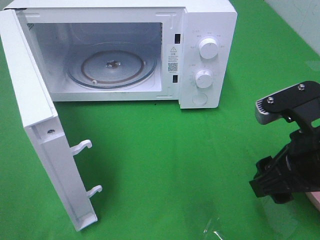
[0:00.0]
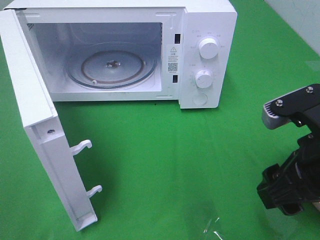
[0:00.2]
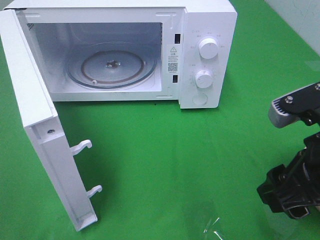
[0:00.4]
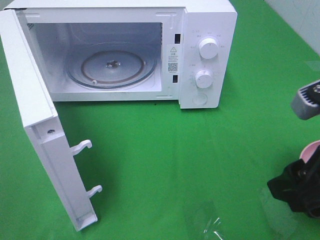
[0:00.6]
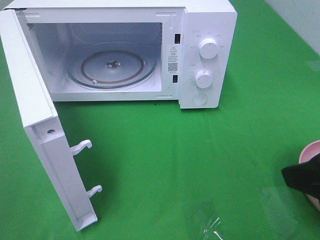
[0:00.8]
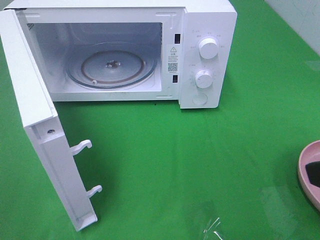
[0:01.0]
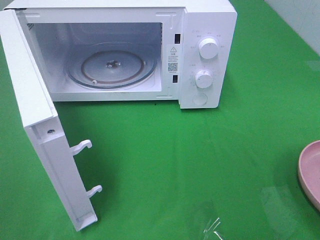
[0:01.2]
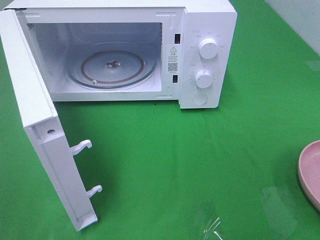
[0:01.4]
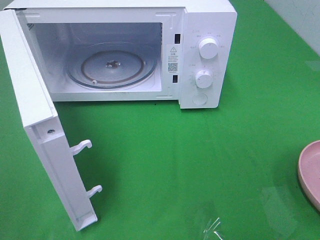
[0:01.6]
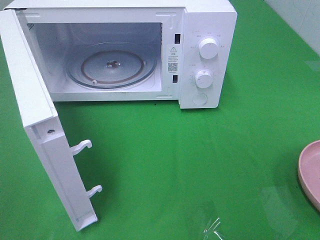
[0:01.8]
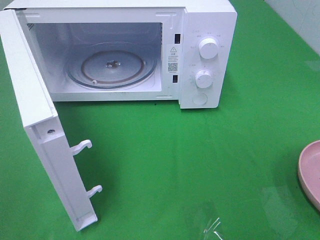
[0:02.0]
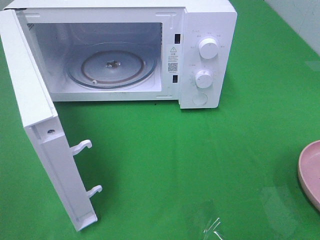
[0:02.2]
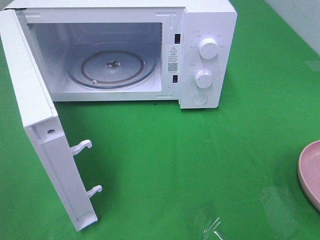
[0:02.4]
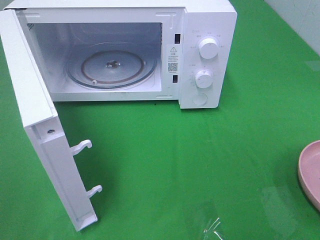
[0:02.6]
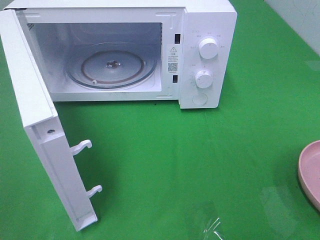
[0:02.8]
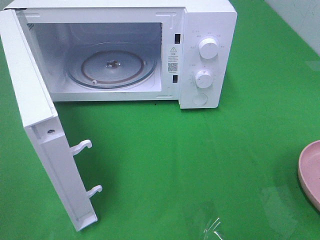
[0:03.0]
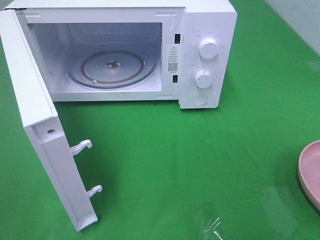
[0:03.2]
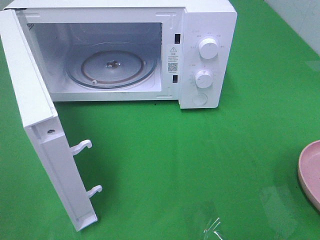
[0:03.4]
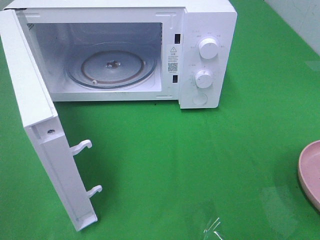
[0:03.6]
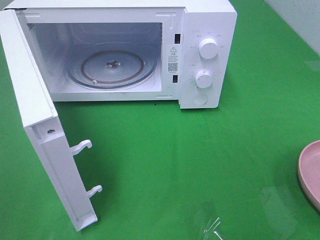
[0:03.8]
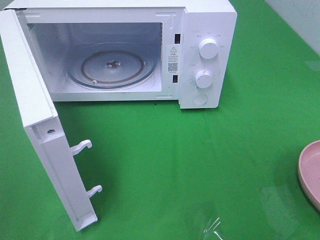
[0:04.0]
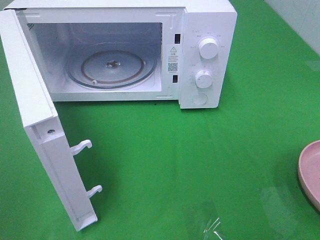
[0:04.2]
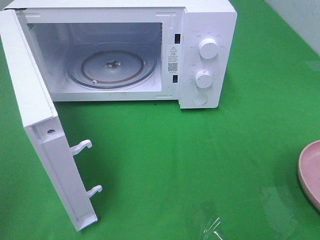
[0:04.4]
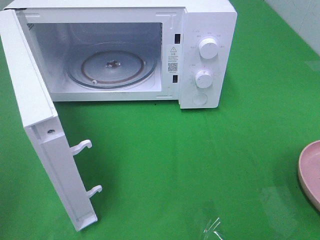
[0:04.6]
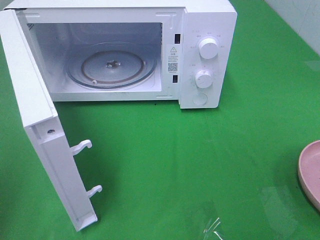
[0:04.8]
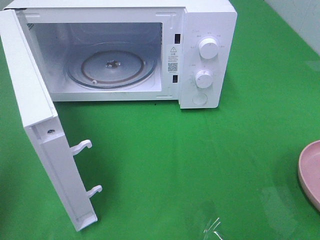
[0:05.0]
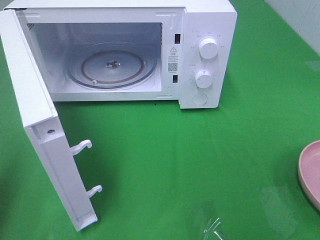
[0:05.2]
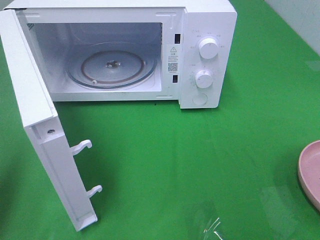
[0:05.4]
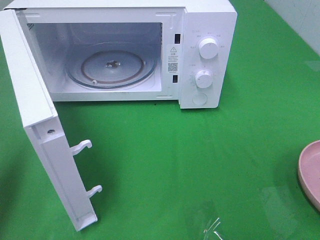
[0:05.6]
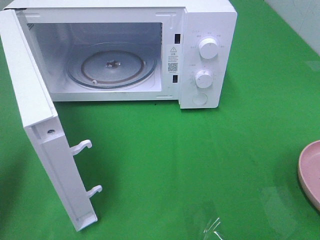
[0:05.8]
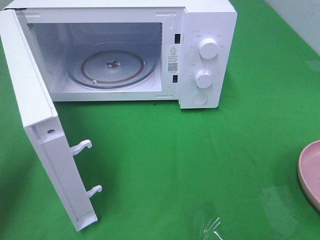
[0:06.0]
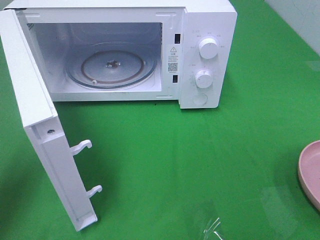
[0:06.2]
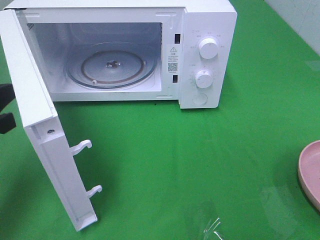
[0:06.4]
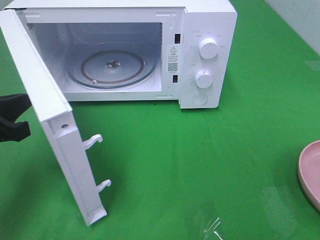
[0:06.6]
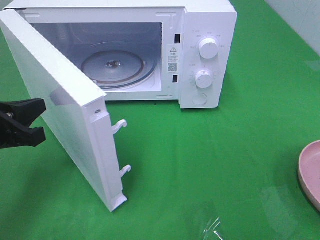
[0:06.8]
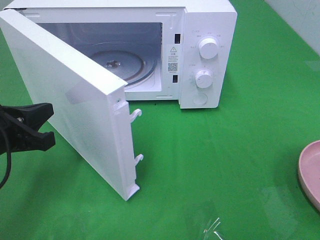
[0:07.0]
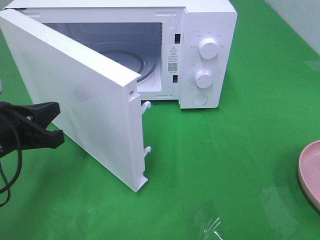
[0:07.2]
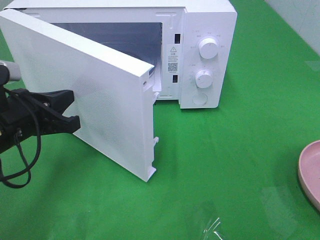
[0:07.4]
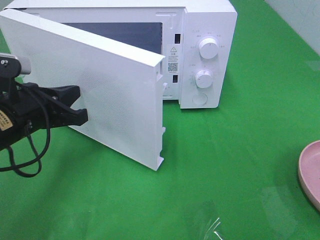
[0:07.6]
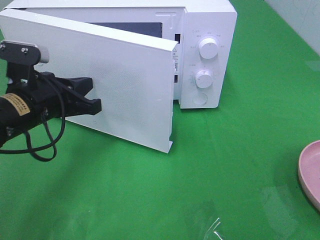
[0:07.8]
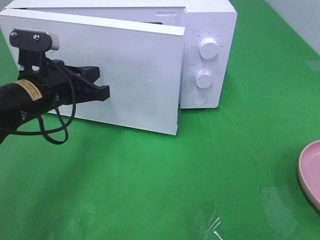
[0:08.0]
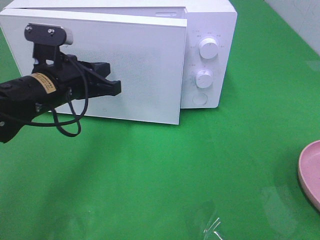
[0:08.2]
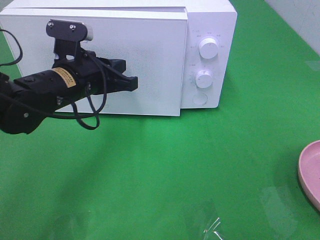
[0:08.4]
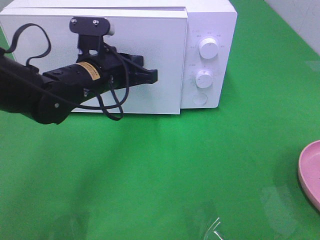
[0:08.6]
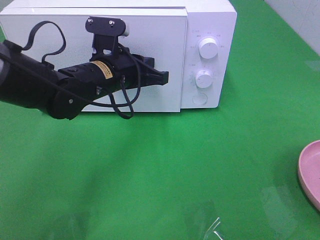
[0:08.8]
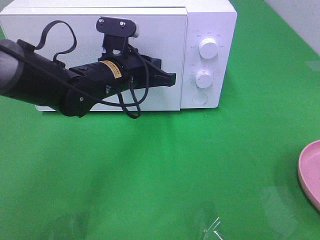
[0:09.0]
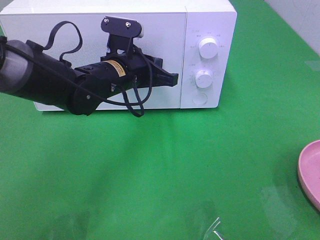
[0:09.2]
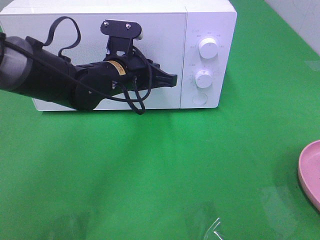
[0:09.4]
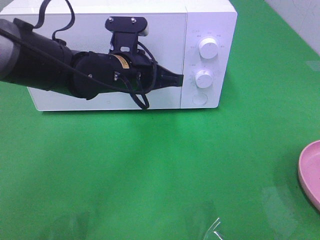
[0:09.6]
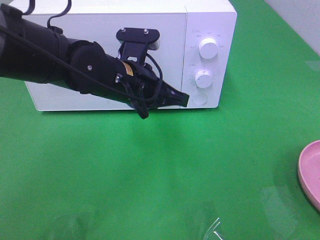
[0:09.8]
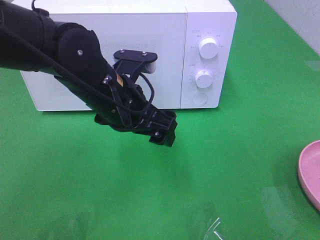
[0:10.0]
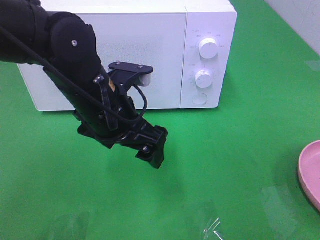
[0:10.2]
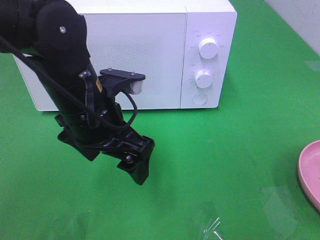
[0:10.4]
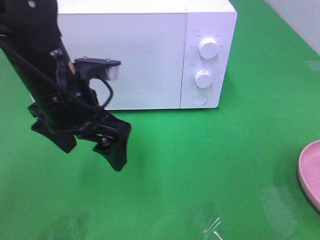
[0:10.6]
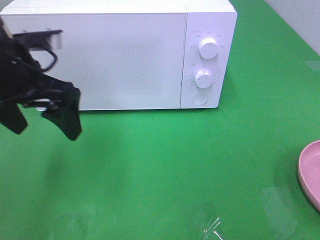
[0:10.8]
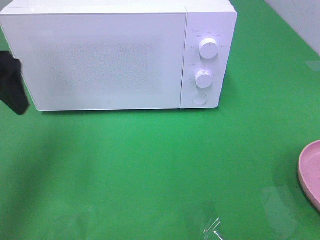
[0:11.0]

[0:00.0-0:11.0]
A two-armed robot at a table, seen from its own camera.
Task of the whole recording: Heat the burger.
Step, 0:00.0 to 0:09.8: Left hand: close the microwave door.
0:00.0 to 0:01.6: The right gripper shifts approximately 20 cm backward, to the right and upward.
0:01.6 to 0:03.2: Both grippers stay put.
0:04.8 to 0:06.2: The left gripper shifts approximately 15 cm downward and forward.
0:06.2 to 0:07.8: The left gripper goes approximately 15 cm to the right and forward.
0:07.8 to 0:09.4: The left gripper travels to the right and forward by some 15 cm.
0:09.4 to 0:11.0: The left gripper shifts approximately 25 cm to the left, upward and backward, and opens up.

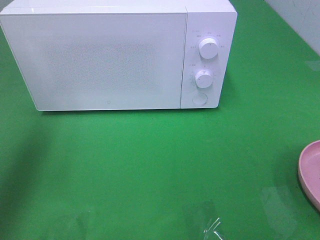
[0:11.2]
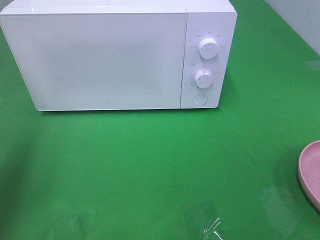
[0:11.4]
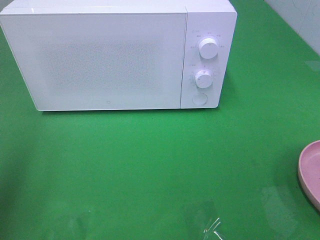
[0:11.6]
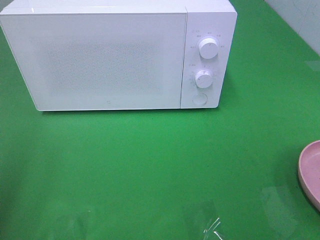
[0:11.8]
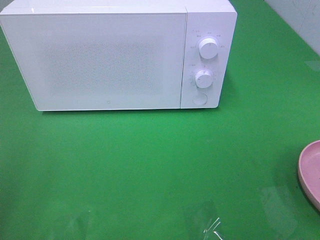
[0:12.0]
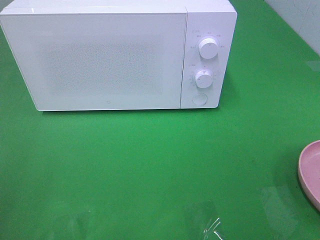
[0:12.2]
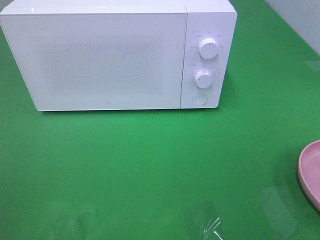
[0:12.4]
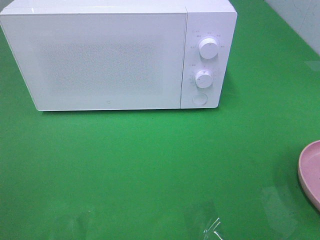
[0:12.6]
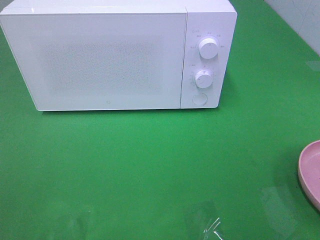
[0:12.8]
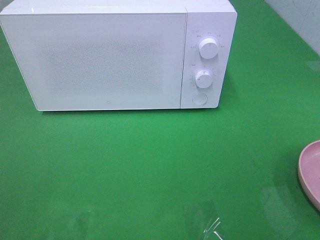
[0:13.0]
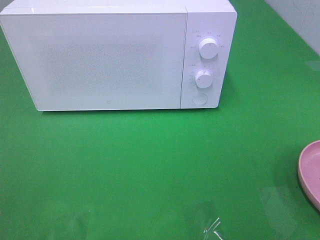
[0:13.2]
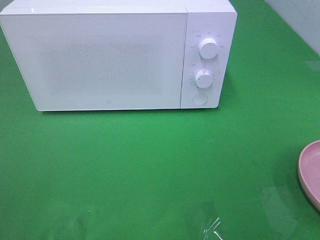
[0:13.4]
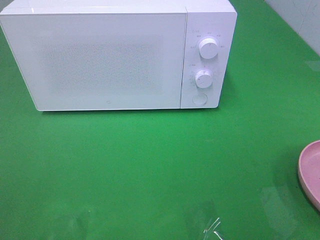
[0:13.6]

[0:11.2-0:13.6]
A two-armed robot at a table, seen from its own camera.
Task of the whole recording: Heat the burger.
0:11.2 to 0:12.4: The left gripper goes some 25 cm backward.

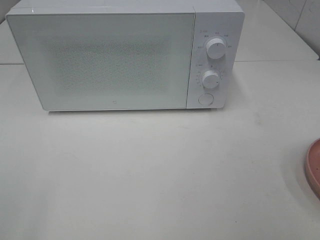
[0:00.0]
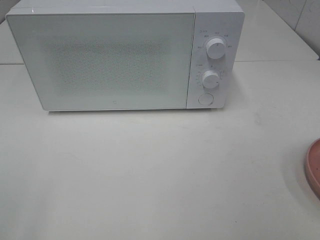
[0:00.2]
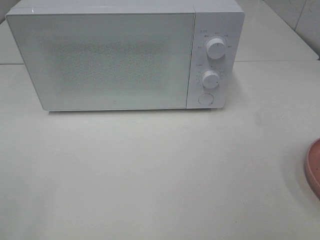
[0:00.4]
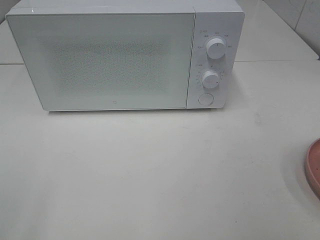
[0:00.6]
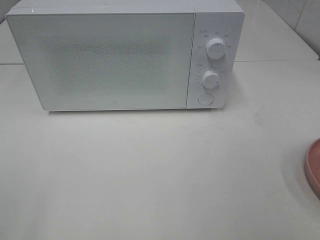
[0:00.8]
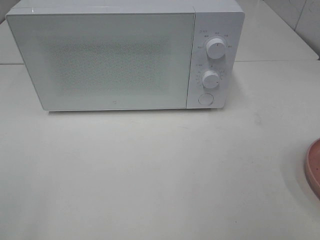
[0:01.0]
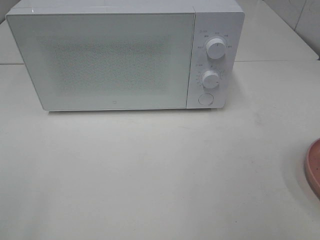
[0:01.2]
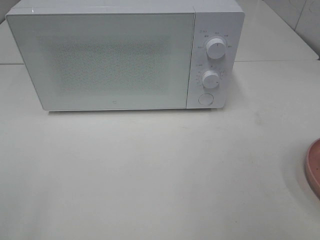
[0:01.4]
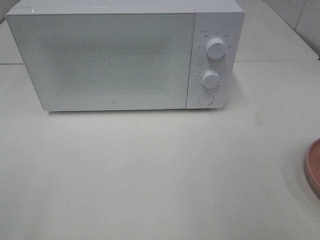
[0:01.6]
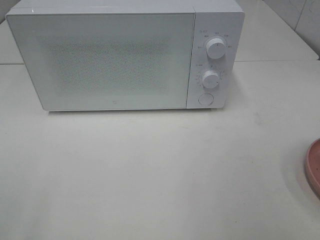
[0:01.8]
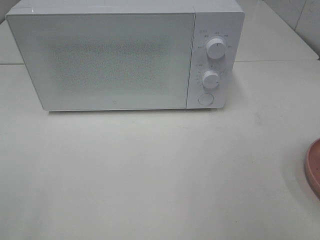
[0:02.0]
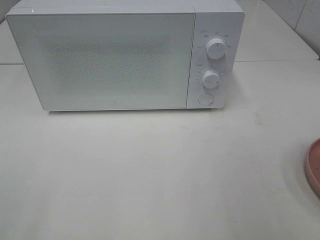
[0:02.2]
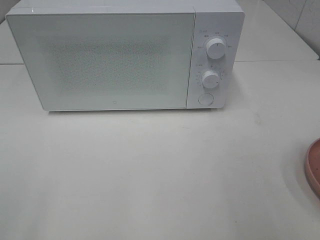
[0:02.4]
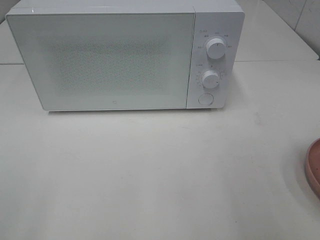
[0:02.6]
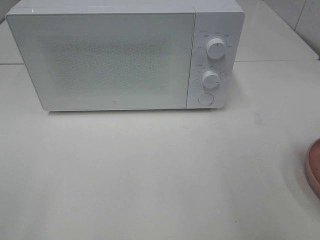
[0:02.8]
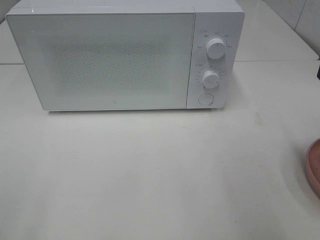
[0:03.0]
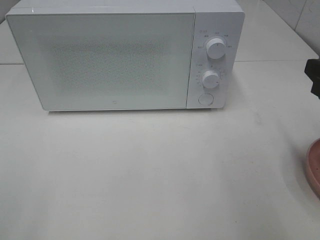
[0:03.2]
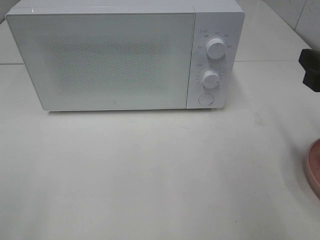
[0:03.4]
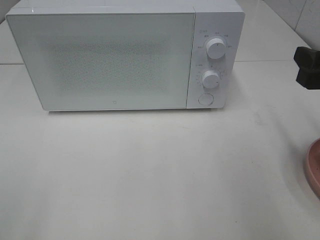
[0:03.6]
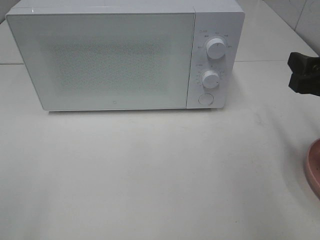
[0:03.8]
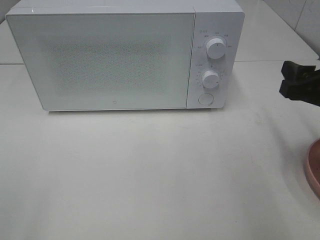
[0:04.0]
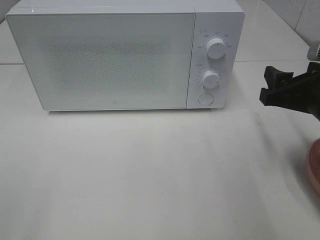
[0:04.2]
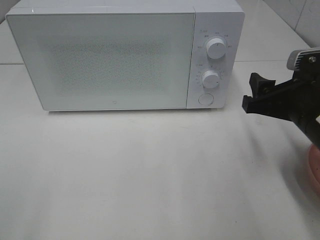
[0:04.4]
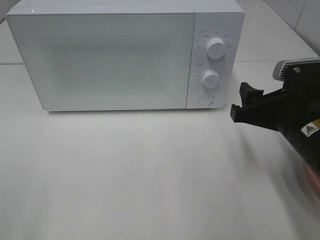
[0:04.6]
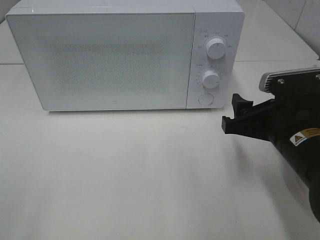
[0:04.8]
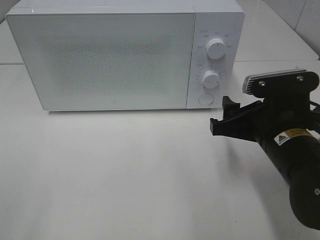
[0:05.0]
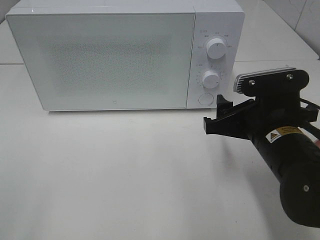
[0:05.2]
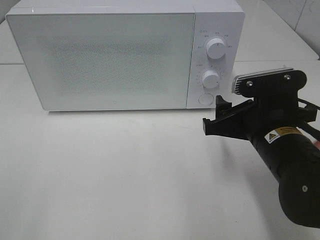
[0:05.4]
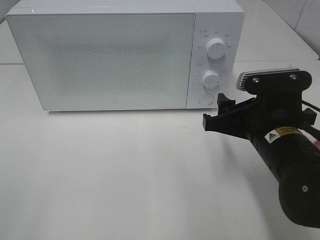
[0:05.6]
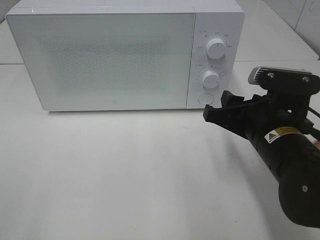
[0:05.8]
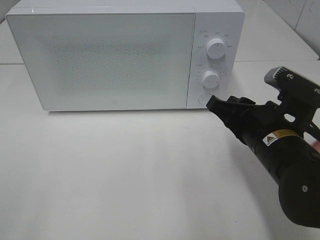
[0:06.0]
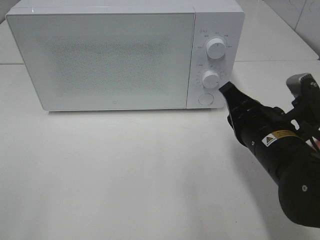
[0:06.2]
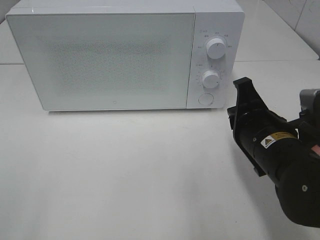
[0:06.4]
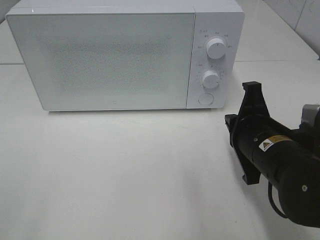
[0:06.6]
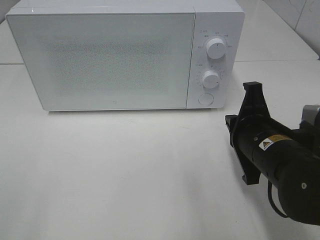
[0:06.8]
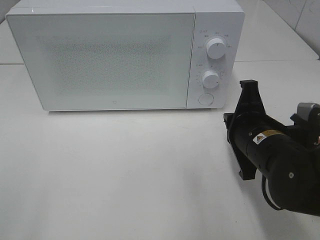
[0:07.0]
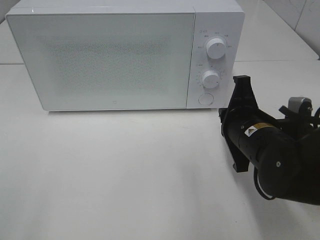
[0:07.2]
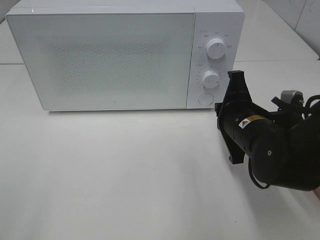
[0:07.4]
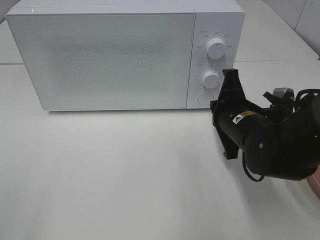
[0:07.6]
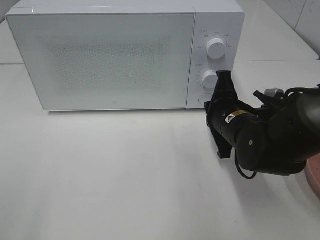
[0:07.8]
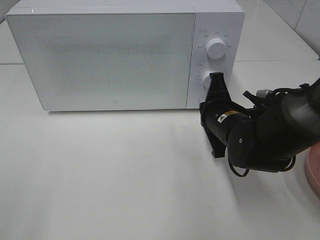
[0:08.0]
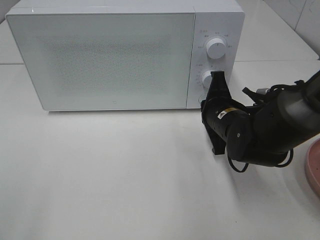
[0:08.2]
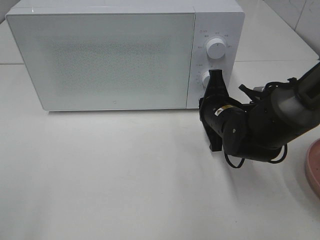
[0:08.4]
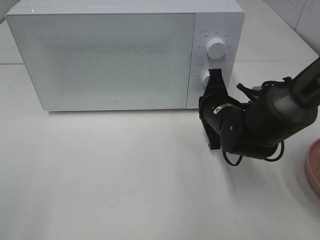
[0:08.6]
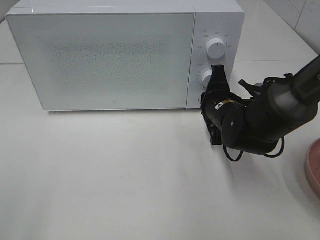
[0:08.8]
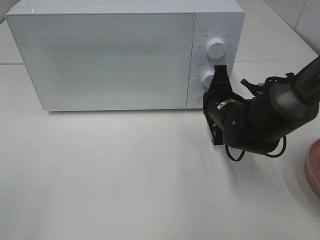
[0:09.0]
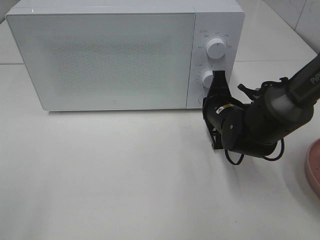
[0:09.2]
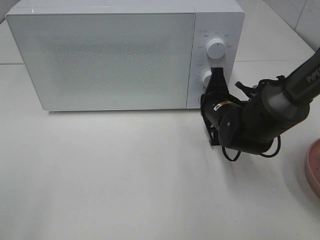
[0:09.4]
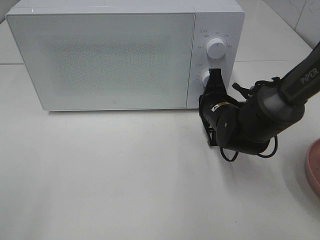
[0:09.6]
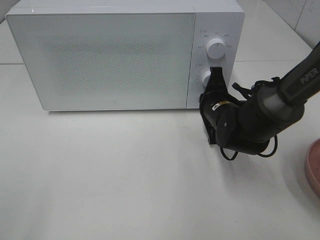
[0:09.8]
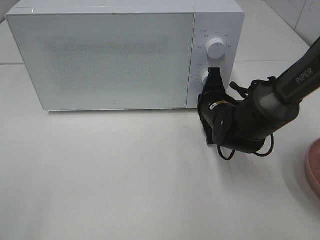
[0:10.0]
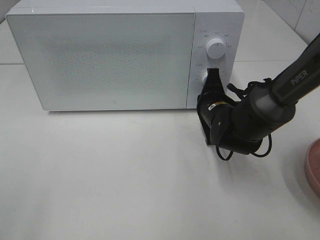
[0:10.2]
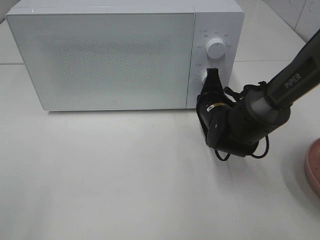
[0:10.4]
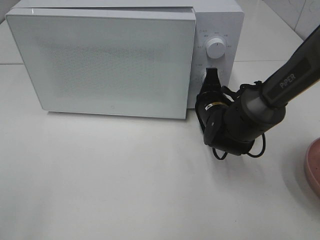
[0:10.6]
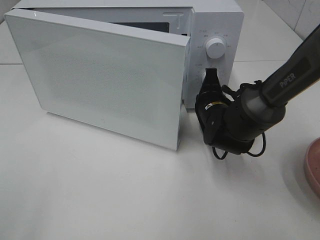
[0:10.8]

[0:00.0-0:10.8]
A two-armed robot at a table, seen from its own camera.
Task of the whole recording: Heat the burger.
0:03.0 to 0:04.6: The right gripper goes about 10 cm downward, to the left and forward.
0:04.6 to 0:06.2: The right gripper closes.
0:06.2 to 0:07.8: The right gripper shifts some 5 cm forward.
0:07.8 to 0:09.2: The right gripper moves about 5 cm.
0:09.2 to 0:10.8: The grippers stay close to where they were, moving slightly.
